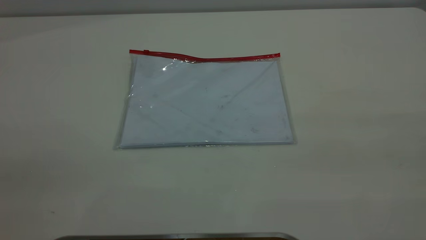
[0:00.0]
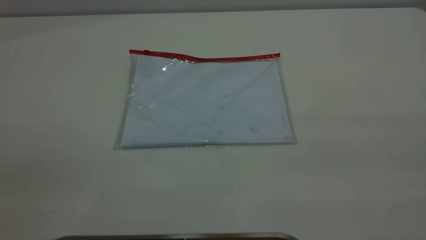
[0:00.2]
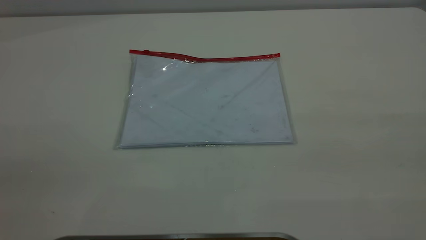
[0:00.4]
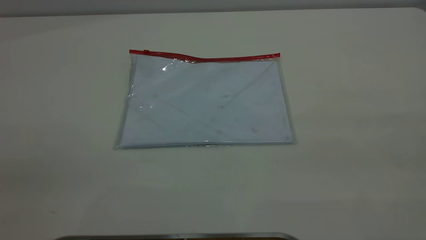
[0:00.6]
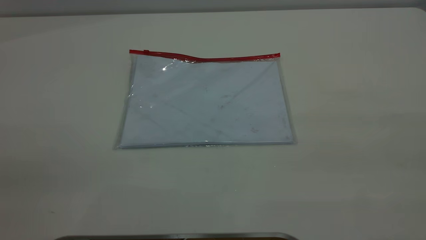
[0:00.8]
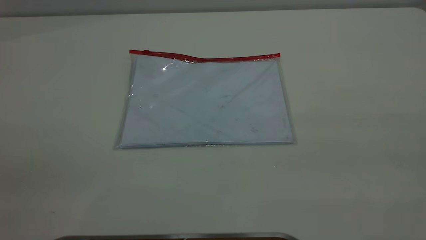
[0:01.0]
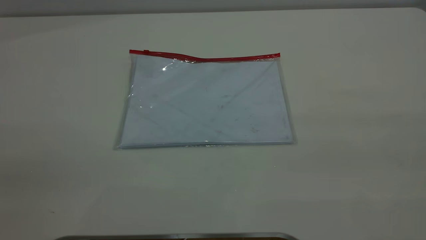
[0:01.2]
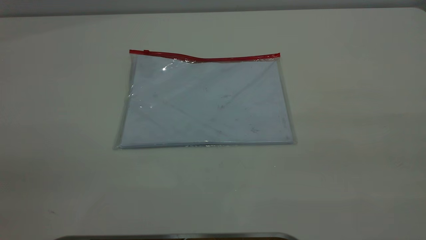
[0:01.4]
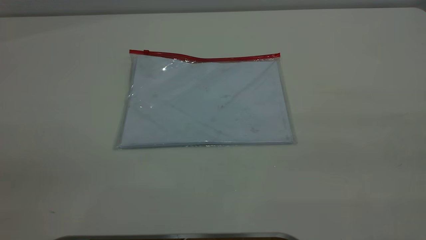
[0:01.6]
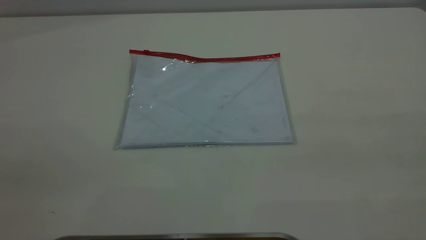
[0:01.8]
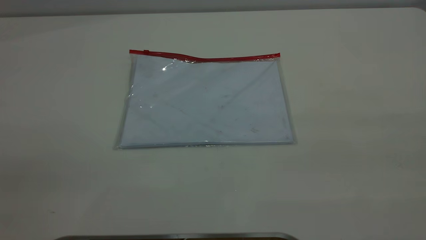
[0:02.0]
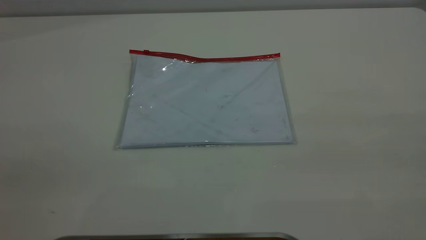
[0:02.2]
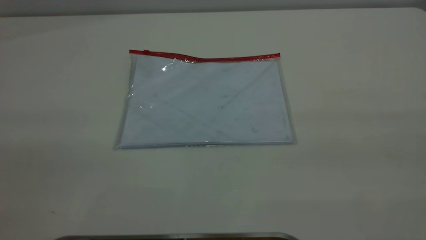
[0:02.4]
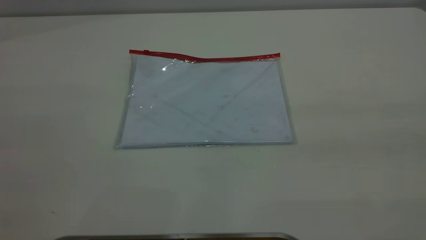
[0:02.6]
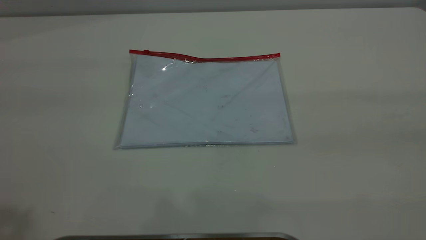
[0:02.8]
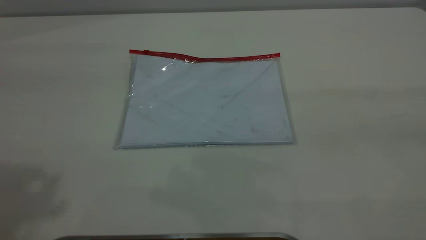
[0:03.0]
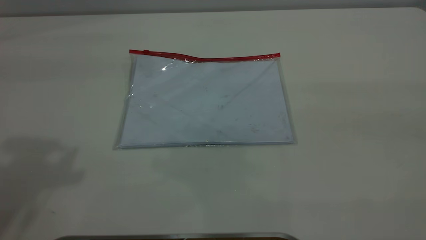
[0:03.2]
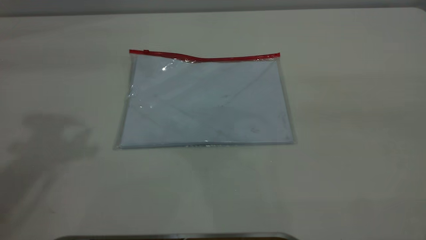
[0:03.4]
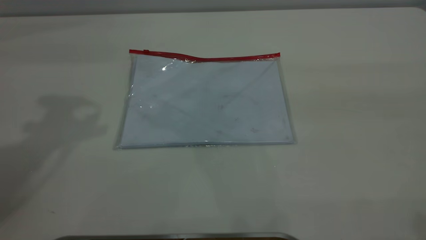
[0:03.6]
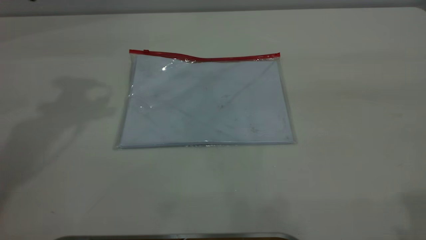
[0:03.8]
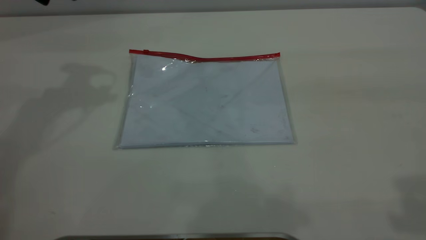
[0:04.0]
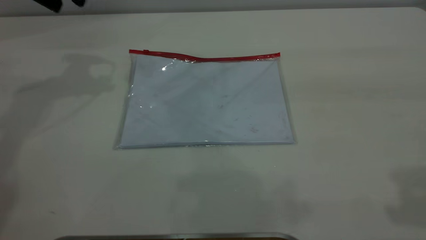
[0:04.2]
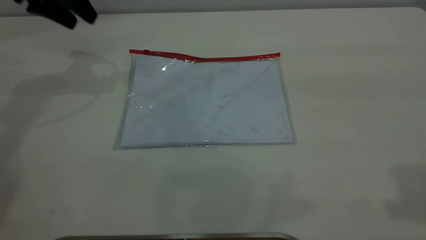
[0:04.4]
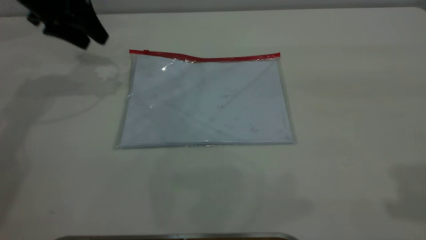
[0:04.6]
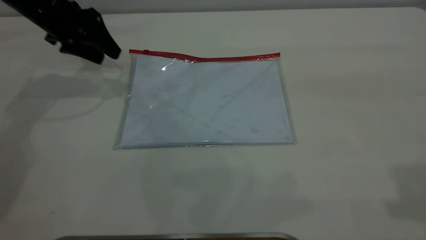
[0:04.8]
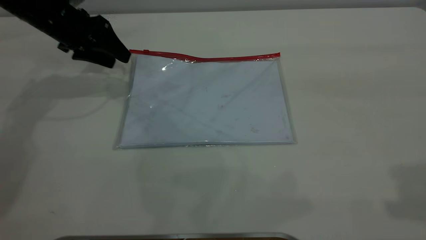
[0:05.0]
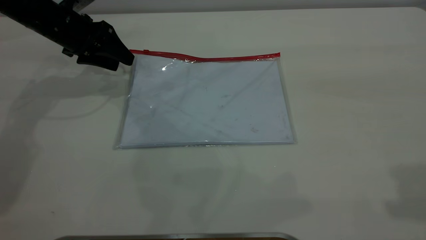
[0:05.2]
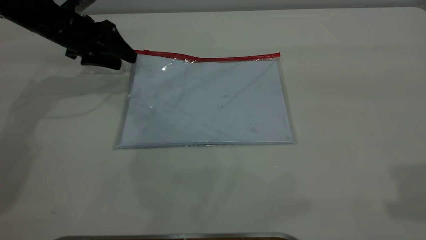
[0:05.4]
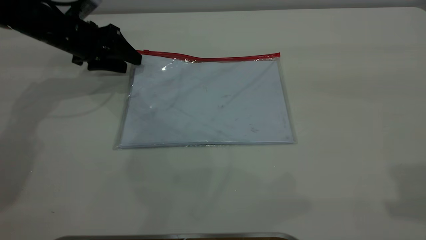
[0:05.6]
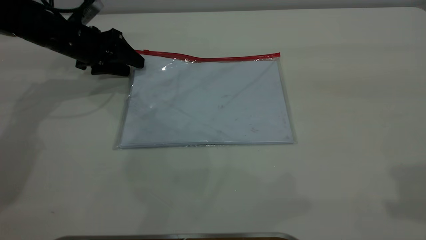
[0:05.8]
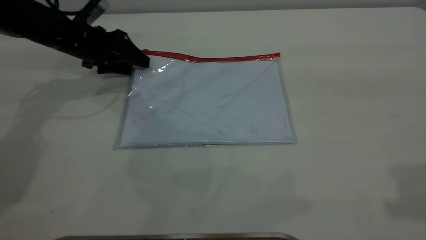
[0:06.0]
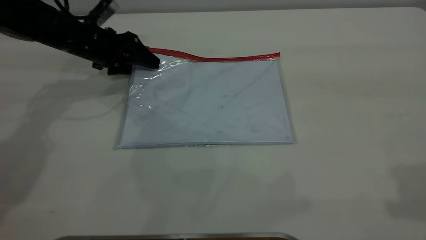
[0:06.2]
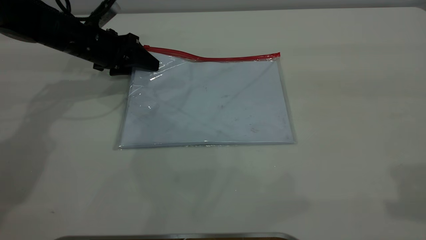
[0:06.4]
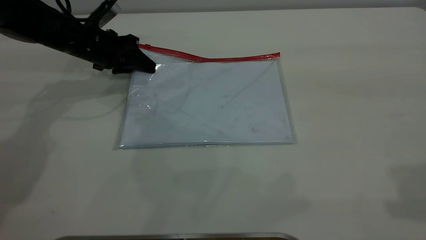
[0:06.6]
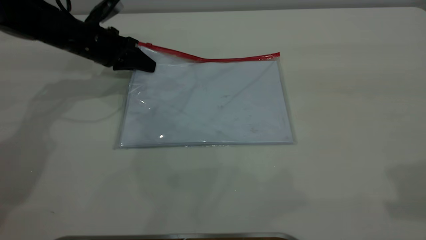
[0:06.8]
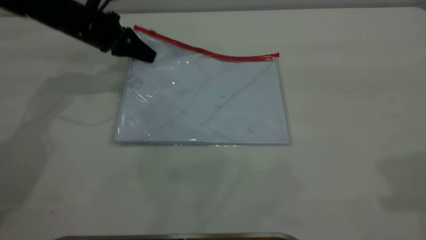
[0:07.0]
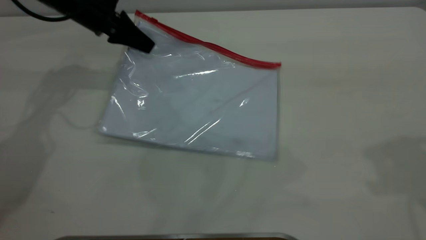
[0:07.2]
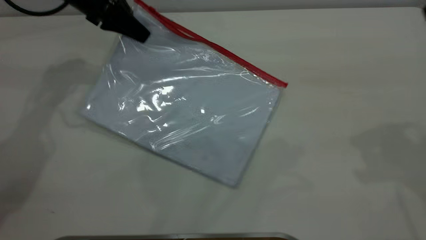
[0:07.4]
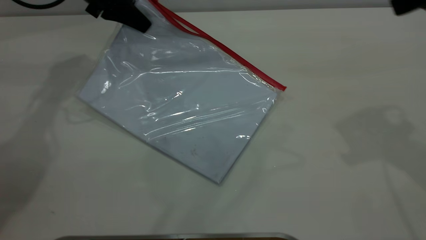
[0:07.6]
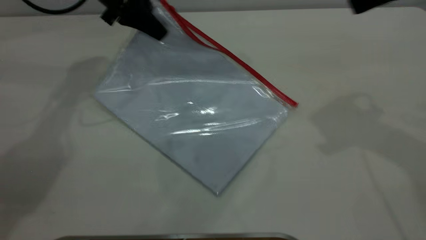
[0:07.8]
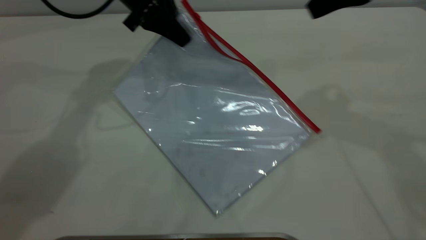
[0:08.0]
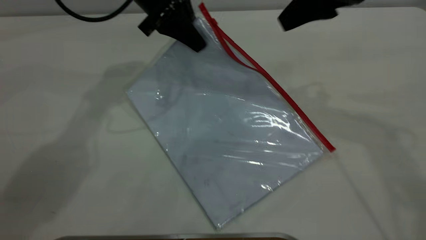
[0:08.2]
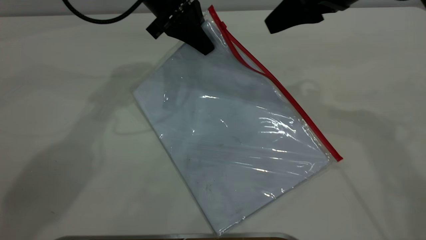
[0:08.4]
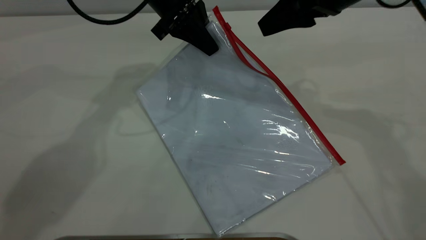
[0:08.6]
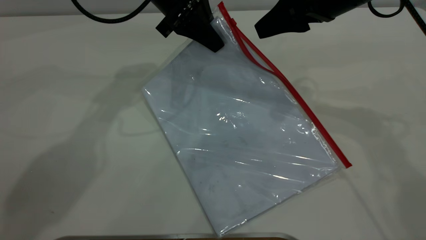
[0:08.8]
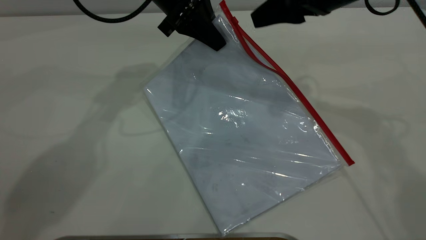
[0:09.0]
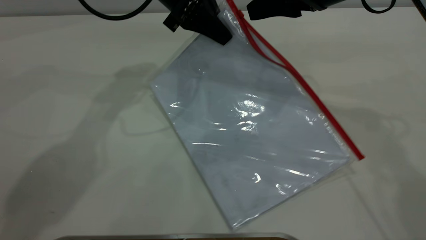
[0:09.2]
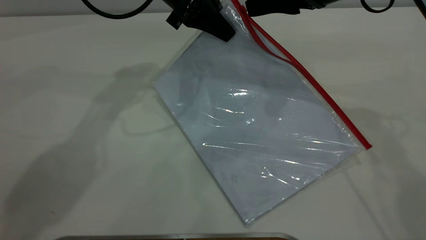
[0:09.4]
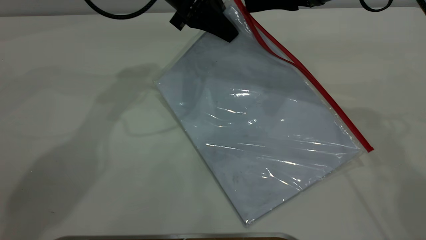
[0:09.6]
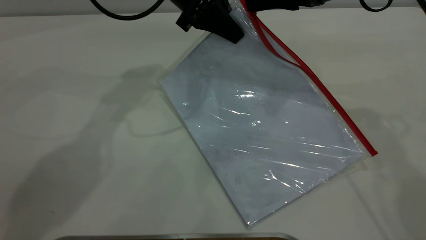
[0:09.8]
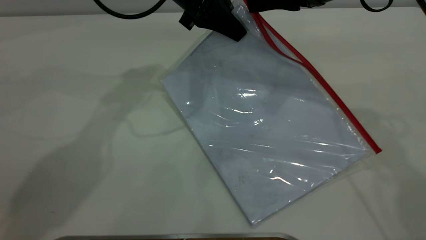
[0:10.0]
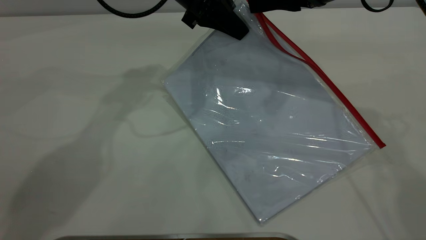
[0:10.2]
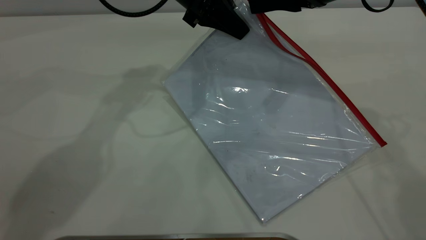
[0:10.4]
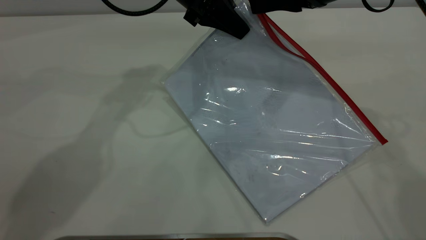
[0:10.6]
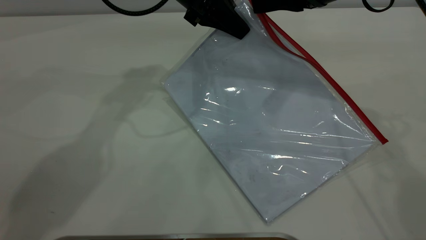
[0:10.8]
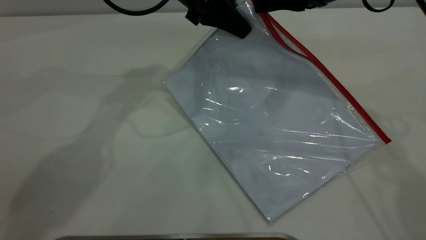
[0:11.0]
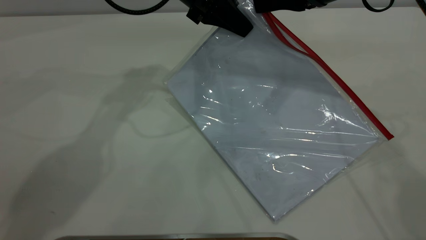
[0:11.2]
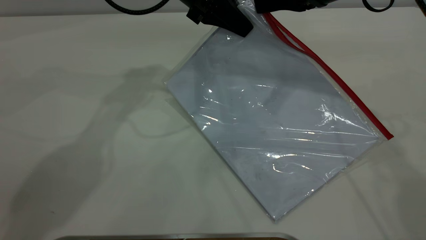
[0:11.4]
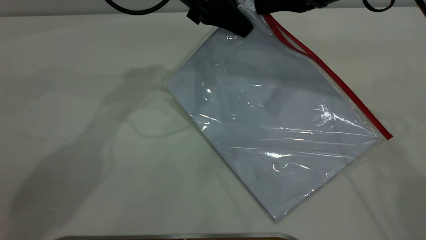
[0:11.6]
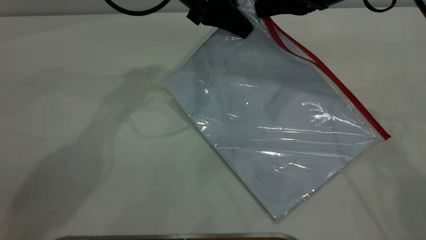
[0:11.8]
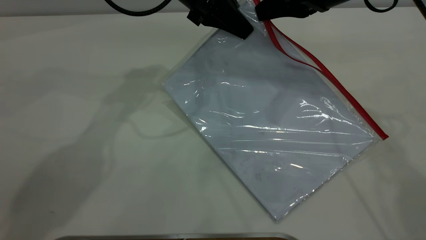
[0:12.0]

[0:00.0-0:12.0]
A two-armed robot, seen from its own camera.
Step, 0:00.0 to 0:07.0: Pick up the transparent plastic bag with the left gripper.
0:00.0 to 0:01.6: The two grippers keep their place.
0:03.0 to 0:04.4: The left gripper shifts about 35 cm forward and downward.
0:04.4 to 0:06.0: The left gripper moves downward, approximately 15 cm.
0:06.0 to 0:07.6: The left gripper shifts approximately 10 cm upward, and closes its fingers. Meanwhile the right gripper goes some 15 cm forward and downward.
0:07.6 to 0:09.0: The left gripper is displaced to the right by roughly 15 cm. The right gripper travels to the left, downward and forward by about 15 cm.
0:09.0 to 0:10.4: The grippers stay close to where they were, moving slightly.
0:10.4 to 0:12.0: The right gripper closes its fingers.

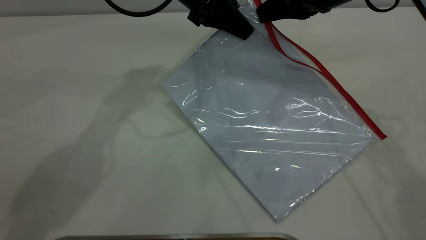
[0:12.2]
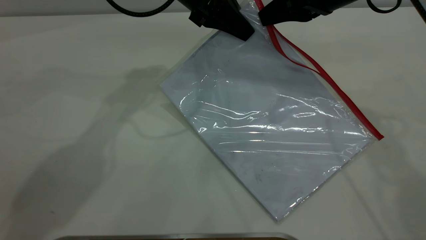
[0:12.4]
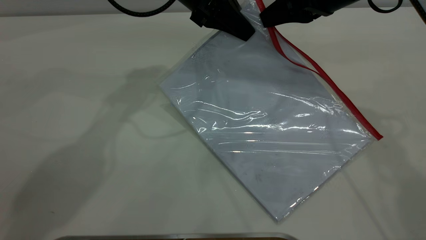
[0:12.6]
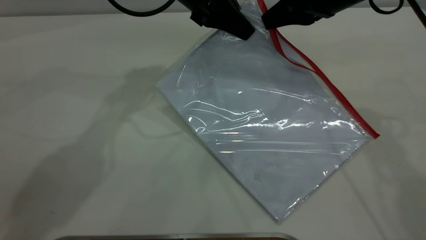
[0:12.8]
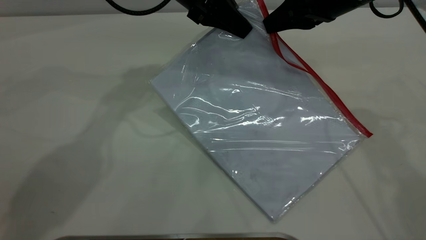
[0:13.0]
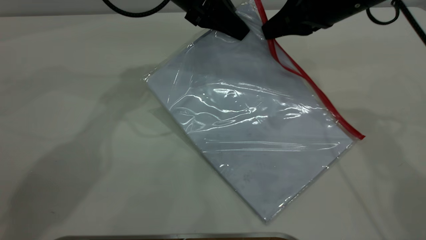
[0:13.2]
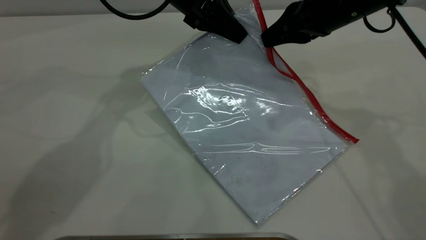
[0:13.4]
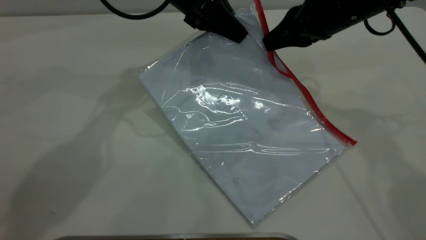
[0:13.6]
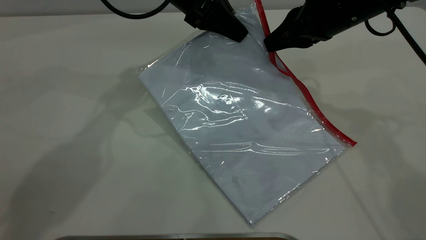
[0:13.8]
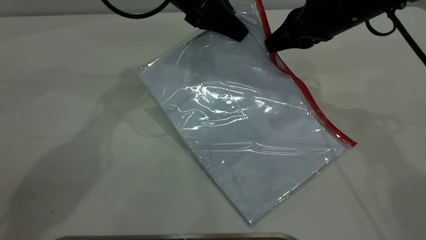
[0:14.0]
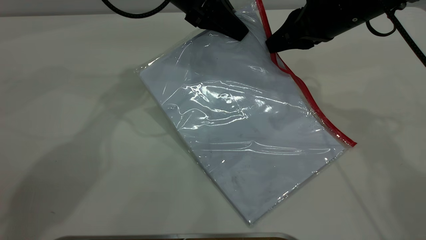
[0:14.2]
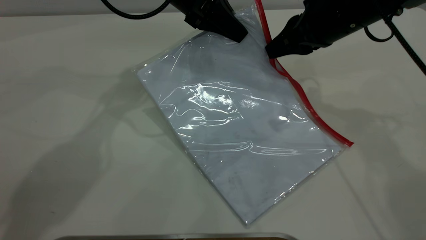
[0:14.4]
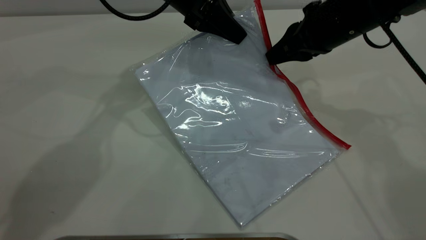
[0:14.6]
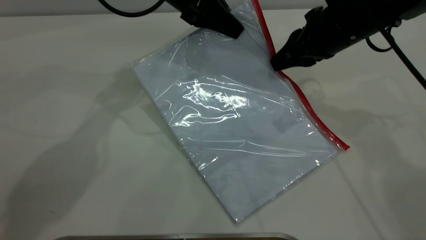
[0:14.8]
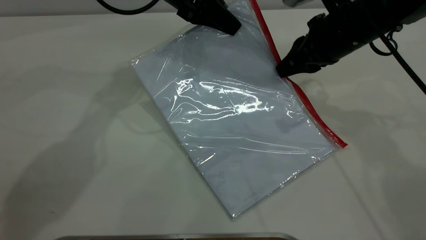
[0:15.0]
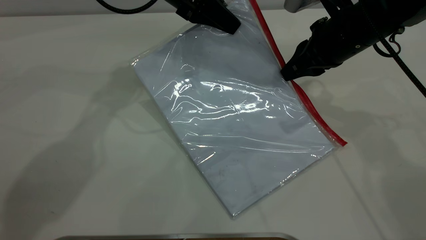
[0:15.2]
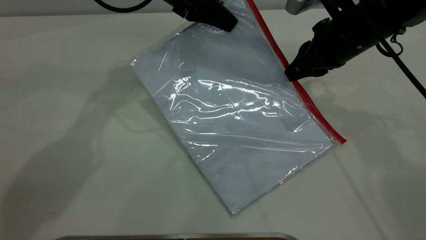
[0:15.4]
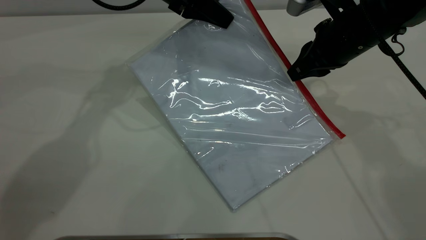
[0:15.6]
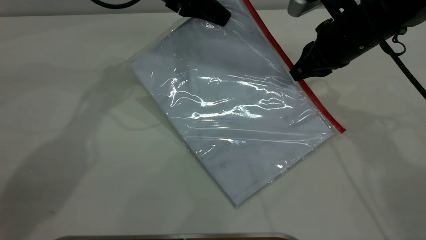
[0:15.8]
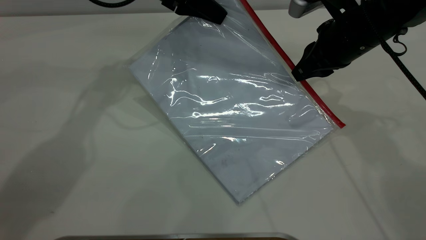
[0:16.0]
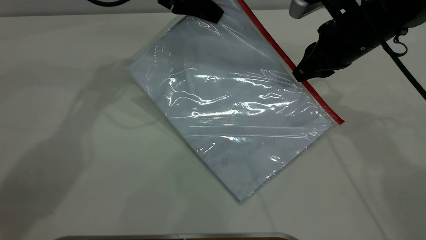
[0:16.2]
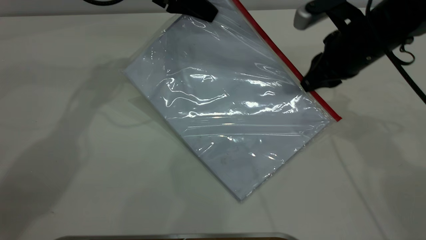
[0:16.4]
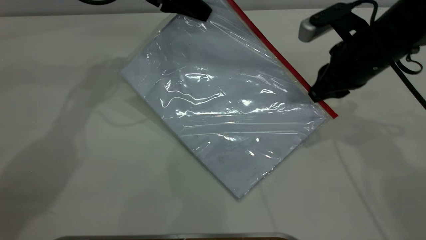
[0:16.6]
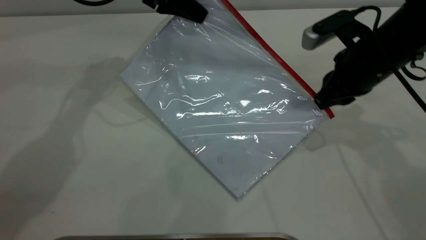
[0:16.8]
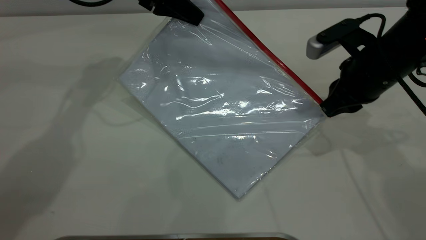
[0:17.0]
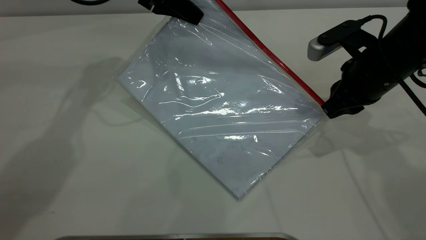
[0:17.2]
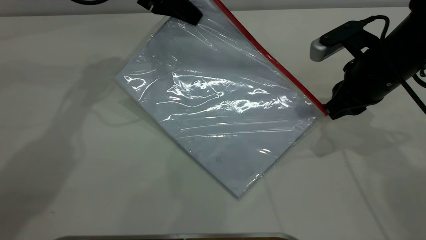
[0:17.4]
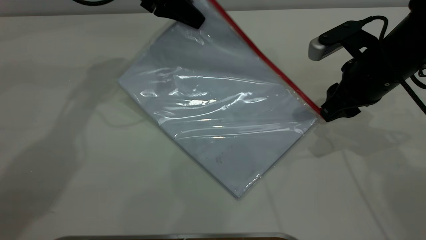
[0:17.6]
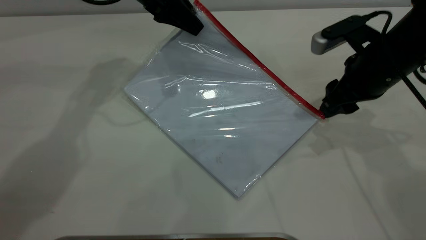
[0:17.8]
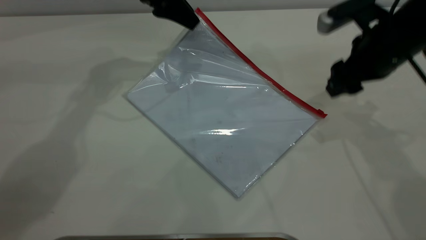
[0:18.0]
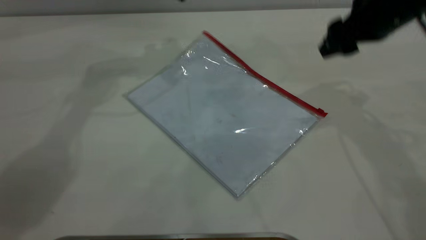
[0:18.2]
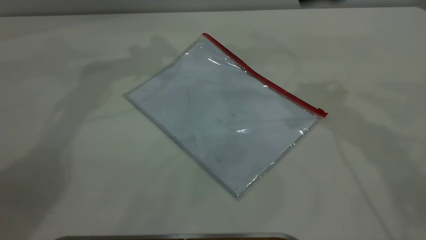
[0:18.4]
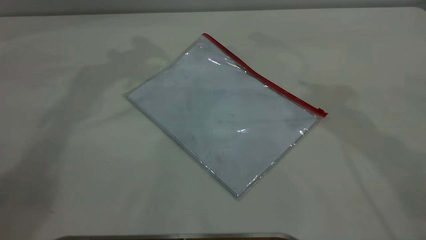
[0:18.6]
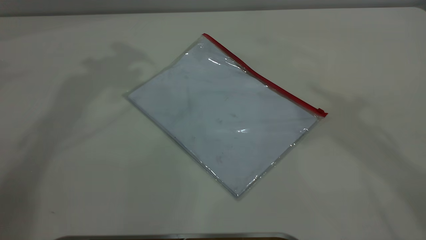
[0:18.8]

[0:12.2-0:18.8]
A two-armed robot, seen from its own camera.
Step, 0:12.2 to 0:17.8: Pulling up the zipper on the transparent plastic bag with the right gripper to close it.
0:12.2 to 0:13.8: There are only small adjustments of the grippers.
0:13.8 to 0:15.4: The grippers stay close to where they were, moving slightly.
0:15.4 to 0:17.2: The left gripper goes some 5 cm to the left. The right gripper ends up about 5 cm from where it was.
0:17.2 to 0:18.8: The two grippers go roughly 30 cm upward. The right gripper opens up, while the left gripper opens up.
